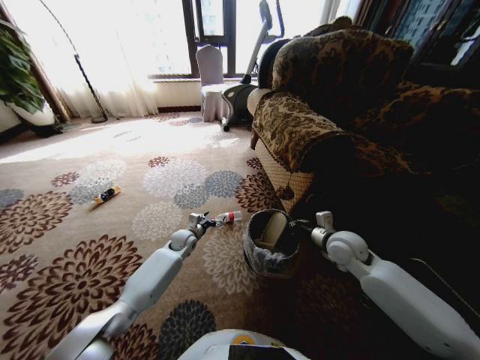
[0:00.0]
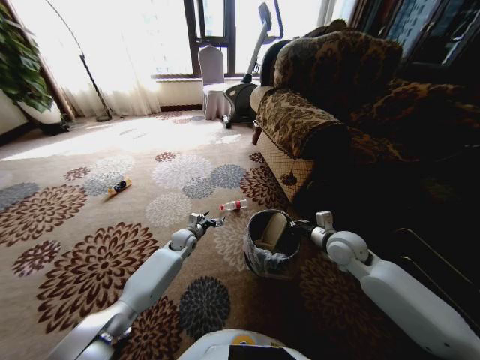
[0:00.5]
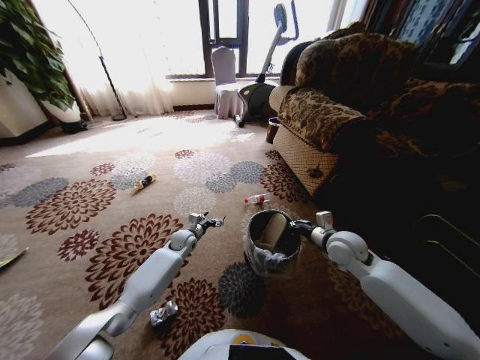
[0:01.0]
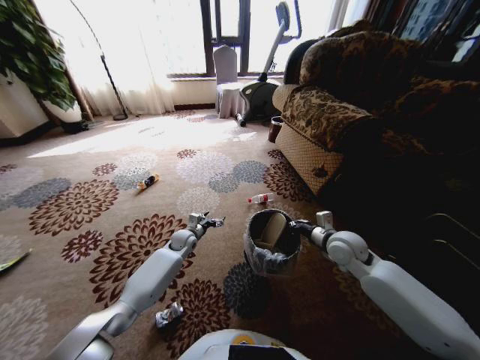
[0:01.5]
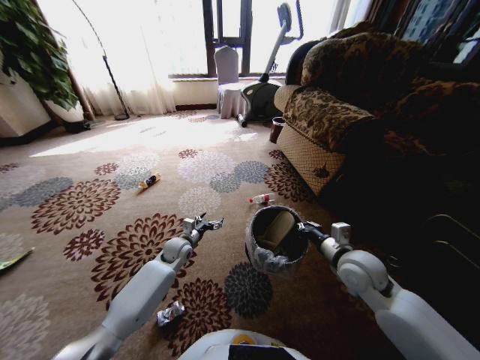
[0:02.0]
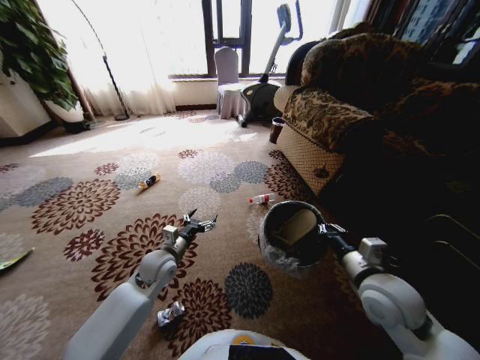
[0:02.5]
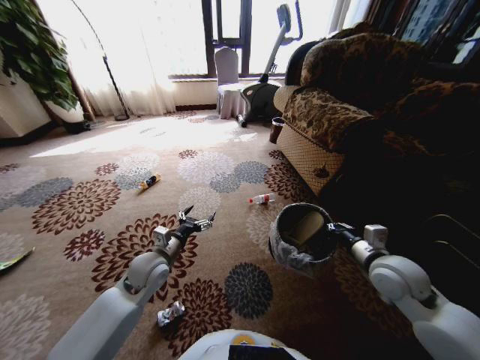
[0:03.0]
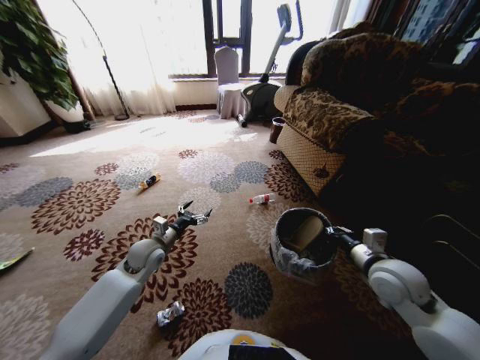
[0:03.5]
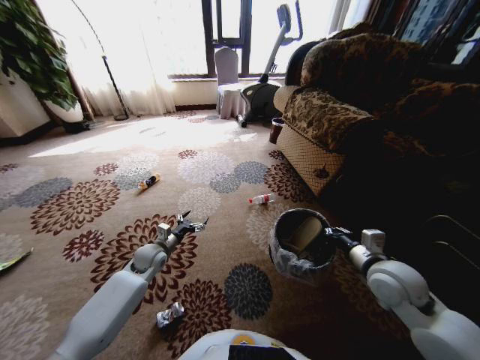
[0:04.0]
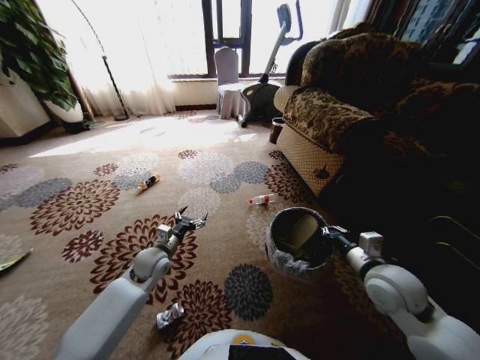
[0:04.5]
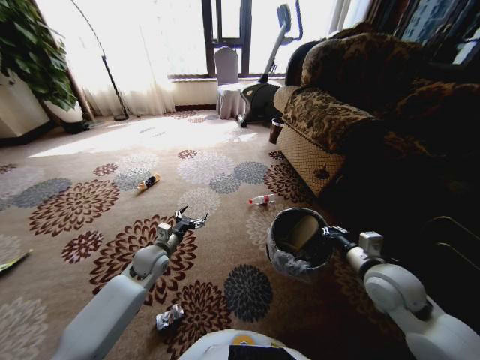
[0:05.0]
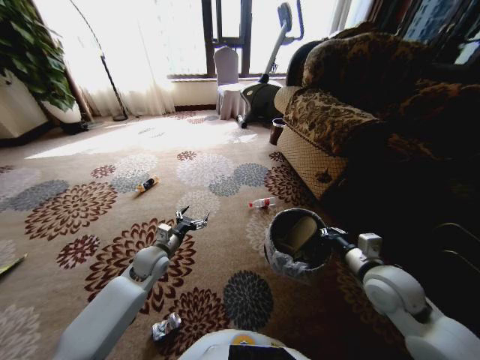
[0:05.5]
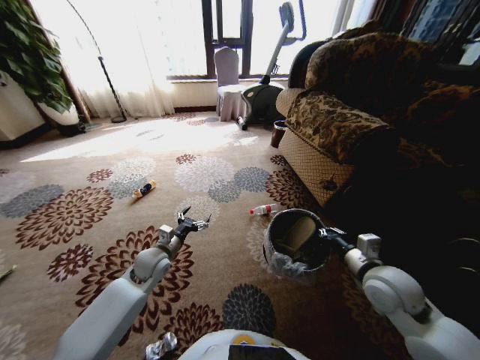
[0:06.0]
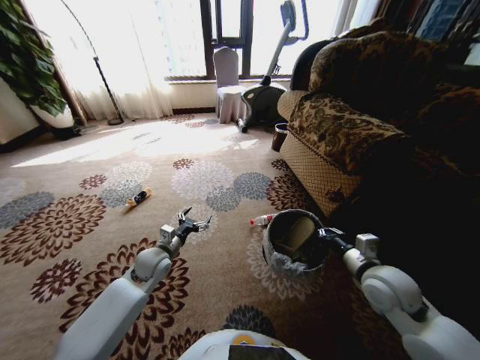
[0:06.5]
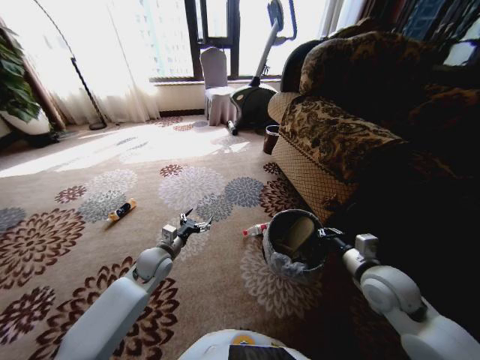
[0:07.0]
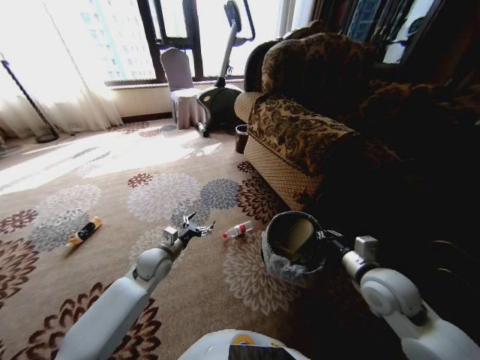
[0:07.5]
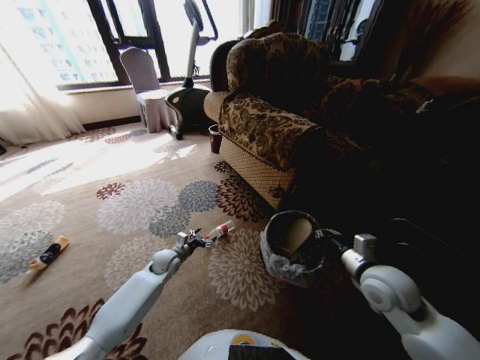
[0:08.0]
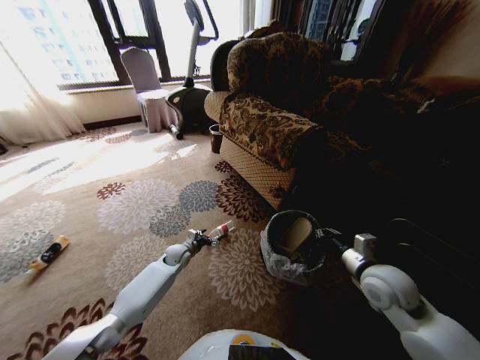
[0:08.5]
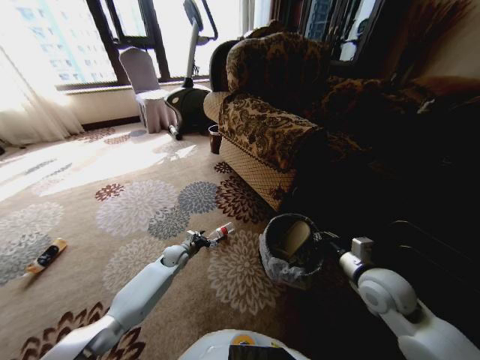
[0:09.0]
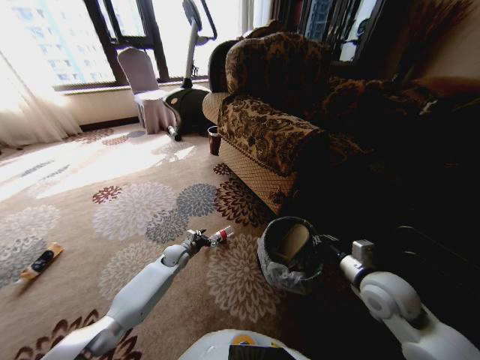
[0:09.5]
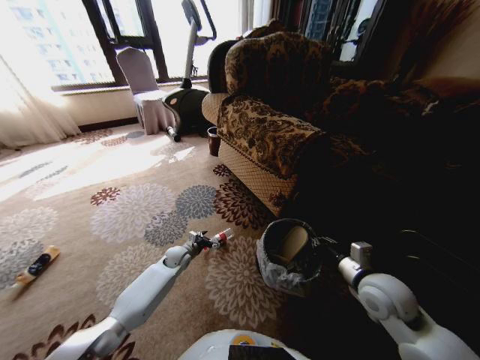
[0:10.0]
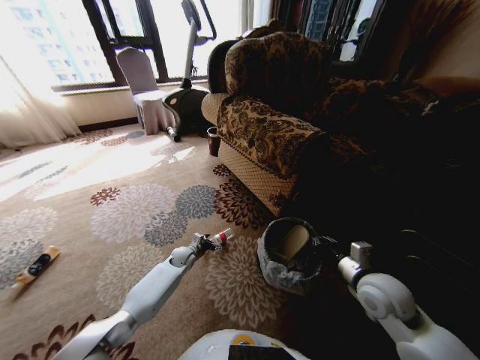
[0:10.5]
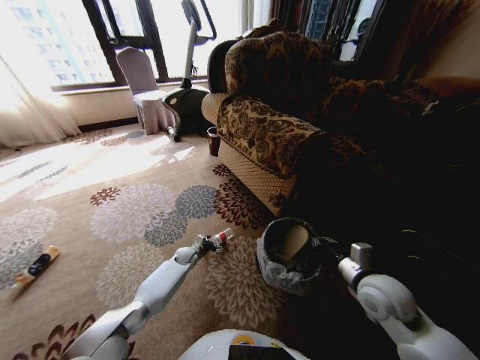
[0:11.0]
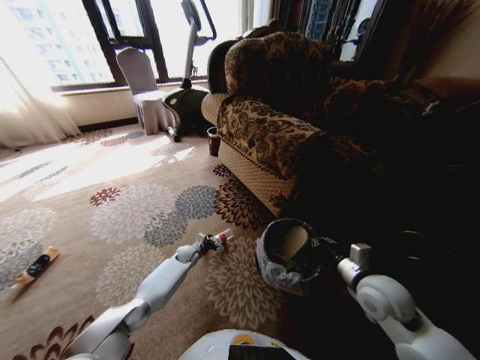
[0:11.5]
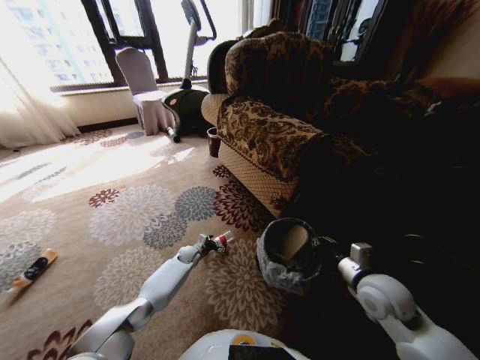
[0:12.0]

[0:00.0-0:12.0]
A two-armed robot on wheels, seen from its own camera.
Task of the whole recording: Pick up the trash from the ground and place it into the trash bin.
0:00.0 to 0:02.0: The grippers both shift backward by about 5 cm.
0:02.0 to 0:04.0: The right gripper heads to the right, covering some 5 cm, while the left gripper is displaced to the left by some 10 cm.
0:04.0 to 0:06.0: The left gripper moves about 5 cm.
0:06.0 to 0:08.0: The left gripper is displaced downward and forward by roughly 10 cm.
0:08.0 to 0:10.0: The left gripper moves roughly 5 cm.
0:10.0 to 0:12.0: The left gripper moves downward, some 5 cm.

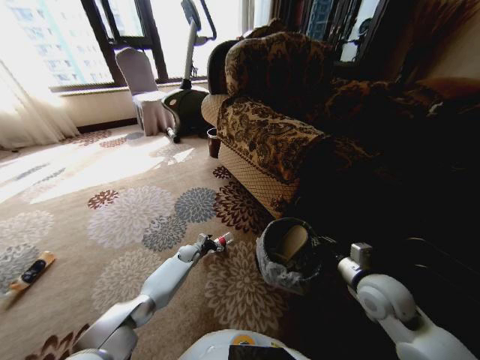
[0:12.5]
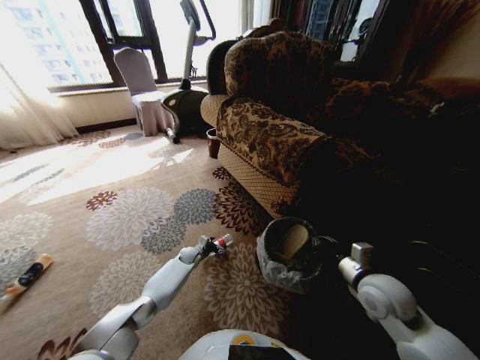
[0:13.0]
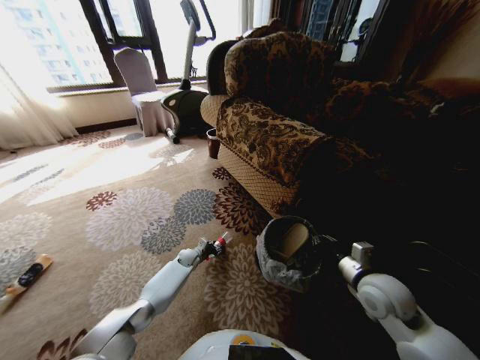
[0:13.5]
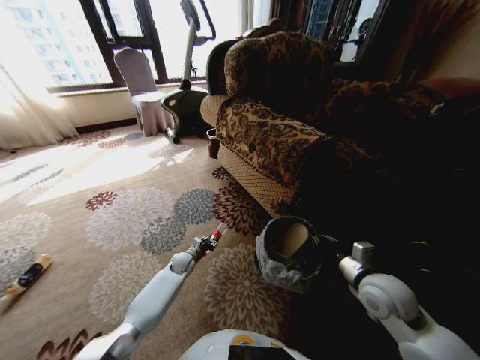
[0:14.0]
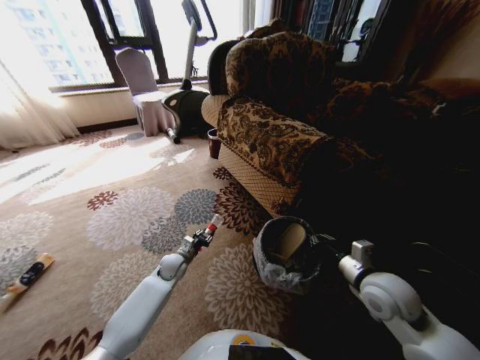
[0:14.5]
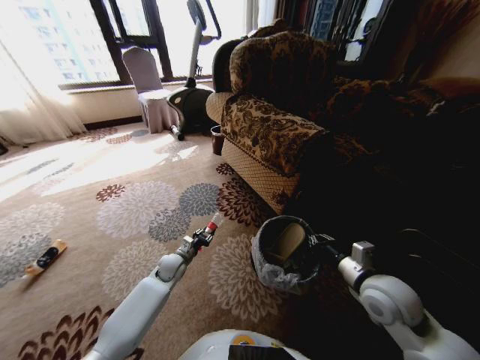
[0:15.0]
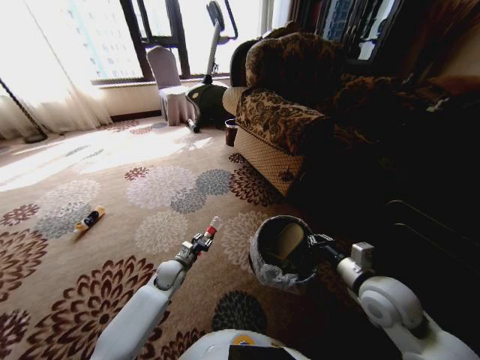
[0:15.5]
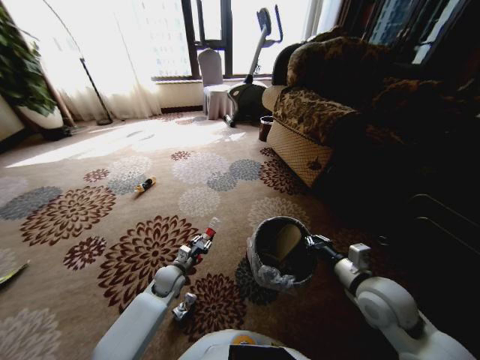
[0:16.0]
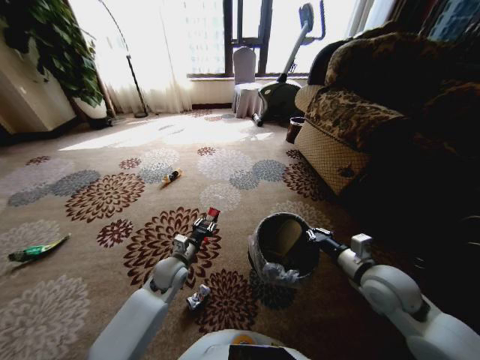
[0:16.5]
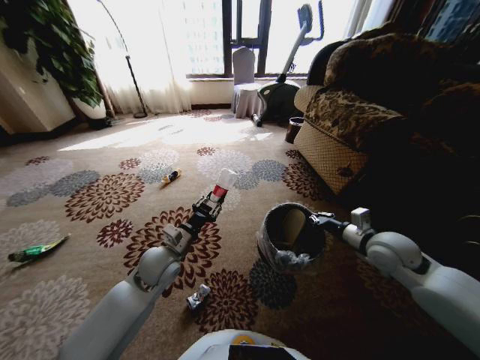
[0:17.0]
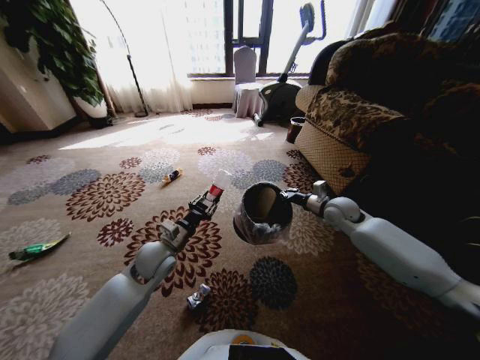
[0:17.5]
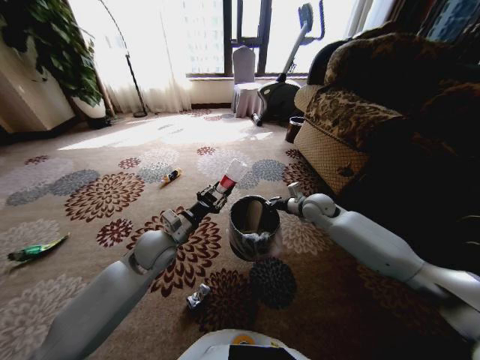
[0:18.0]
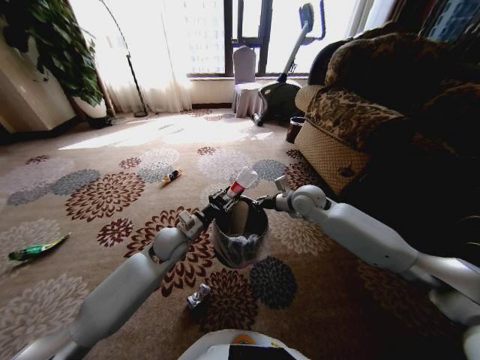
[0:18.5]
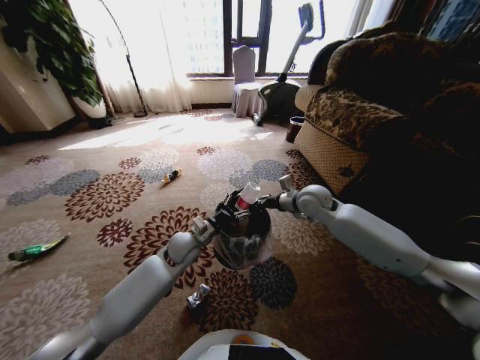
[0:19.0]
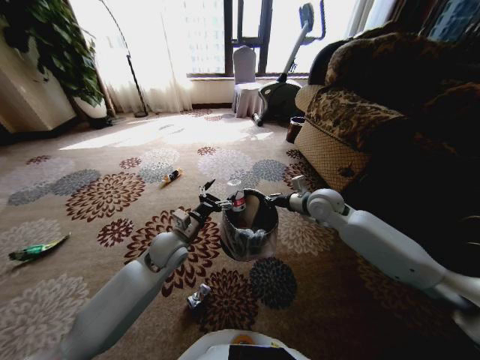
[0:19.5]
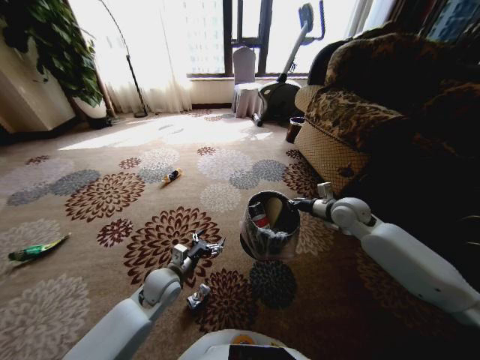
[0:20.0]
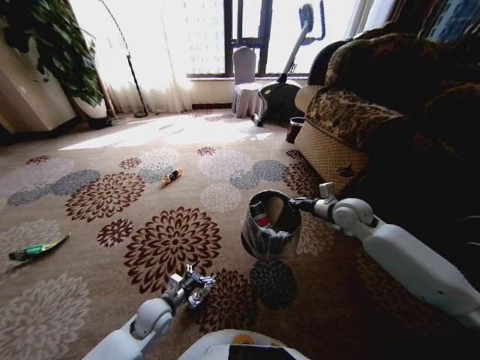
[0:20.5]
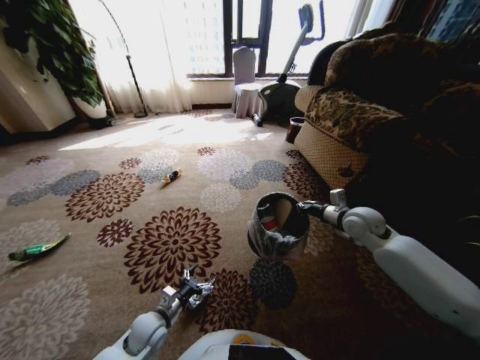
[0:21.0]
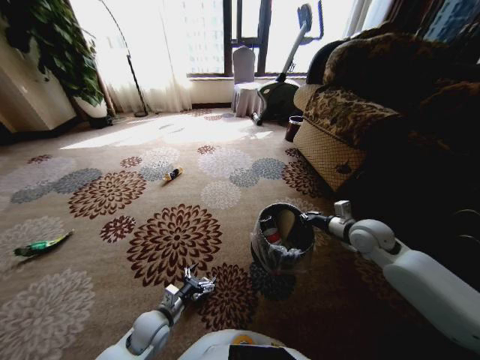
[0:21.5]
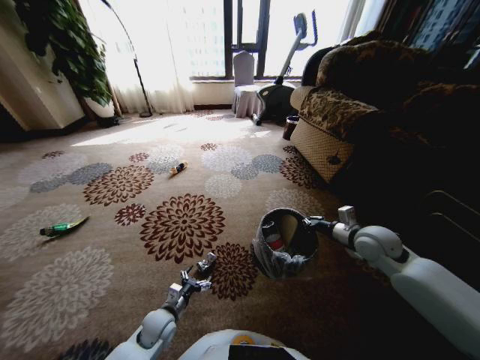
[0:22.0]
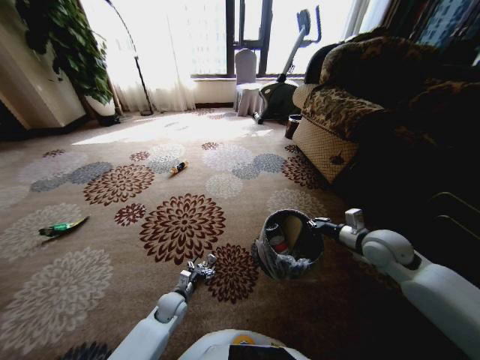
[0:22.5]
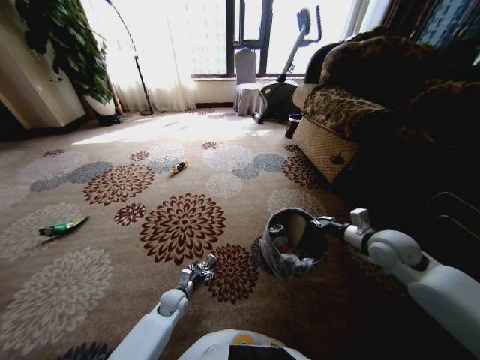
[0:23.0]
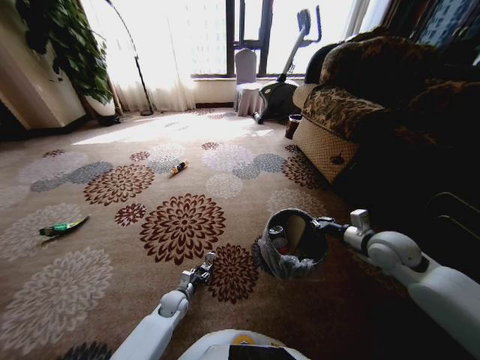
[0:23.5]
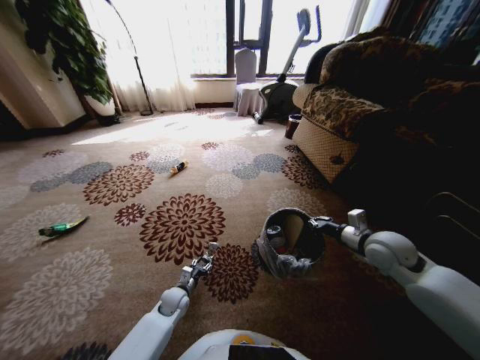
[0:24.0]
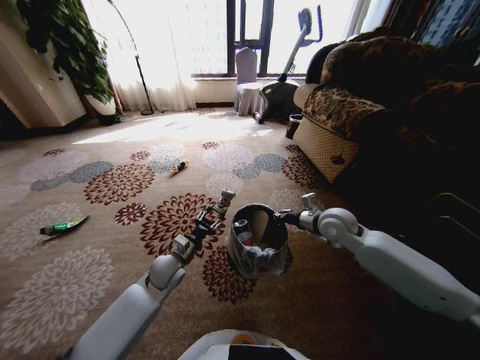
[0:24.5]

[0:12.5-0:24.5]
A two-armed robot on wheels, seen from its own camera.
Task of the whole recording: Pick up the trash from the ground and place it into the trash bin.
0:12.5 to 0:14.5: The left gripper travels upward and backward by about 10 cm, and closes up.
0:14.5 to 0:16.5: The left gripper travels upward and backward by roughly 10 cm.
0:16.5 to 0:18.5: The right gripper shifts roughly 25 cm forward and to the left; the left gripper heads upward, covering about 10 cm.
0:18.5 to 0:20.5: The right gripper shifts roughly 10 cm to the right, while the left gripper is displaced downward and backward by about 20 cm, and opens.
0:20.5 to 0:22.5: The left gripper shifts some 10 cm downward. The right gripper travels backward by about 10 cm.
0:22.5 to 0:24.5: The left gripper moves upward, some 15 cm, and closes its fingers. Meanwhile the right gripper travels to the left and forward by some 10 cm.

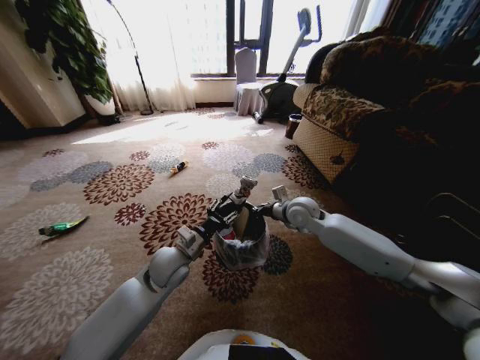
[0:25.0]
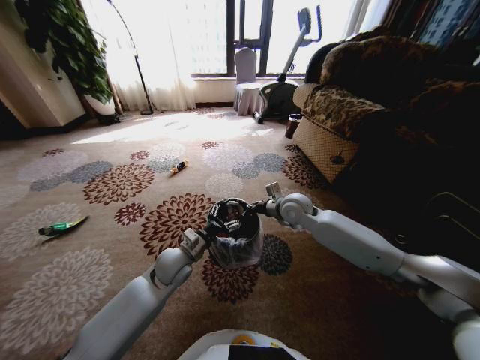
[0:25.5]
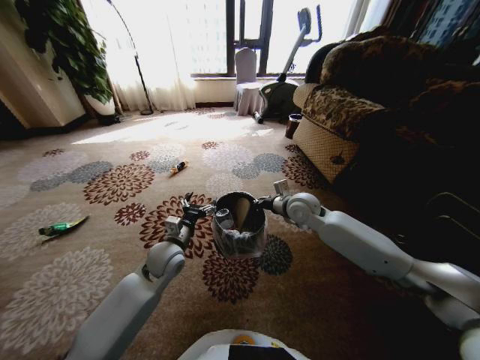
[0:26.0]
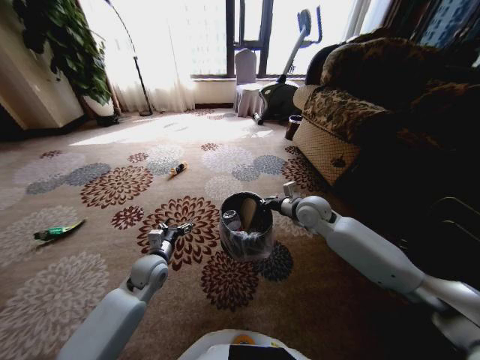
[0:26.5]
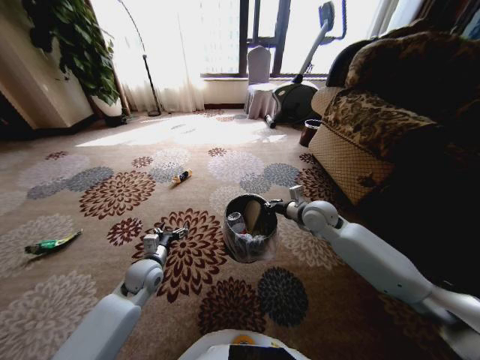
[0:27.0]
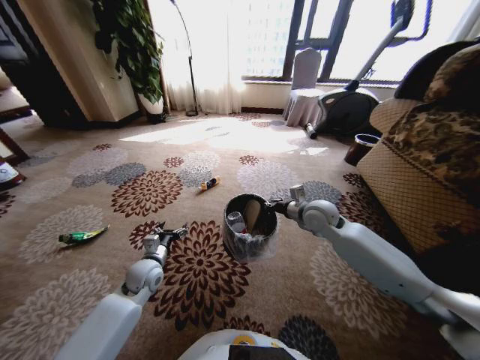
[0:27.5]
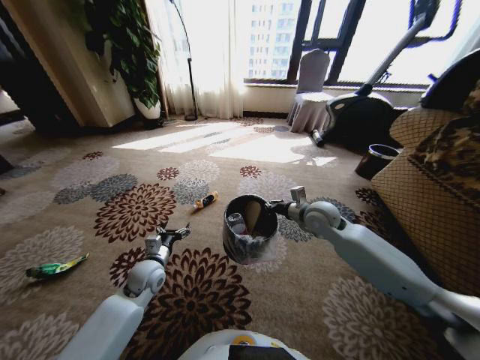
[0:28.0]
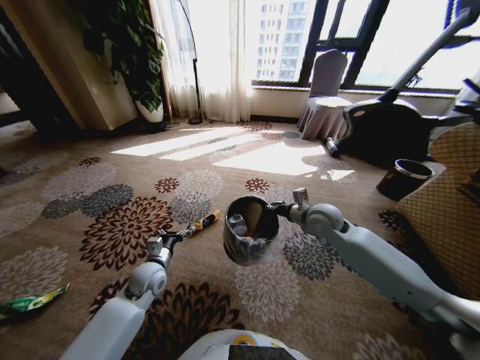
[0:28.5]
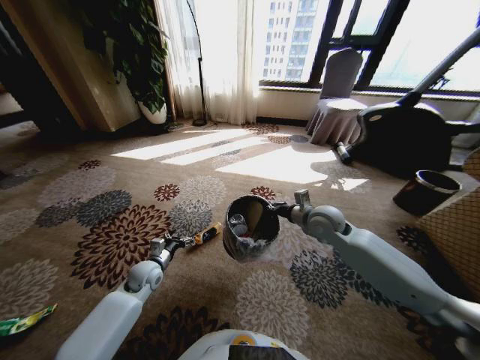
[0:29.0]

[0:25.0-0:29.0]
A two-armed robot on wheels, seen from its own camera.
Task of the whole recording: Pick up the trash from the ground and place it into the trash bin.
0:25.0 to 0:27.0: The left gripper travels to the left and downward by about 15 cm, and opens up, while the right gripper heads to the right, covering roughly 5 cm.
0:27.0 to 0:29.0: The left gripper moves about 5 cm.
